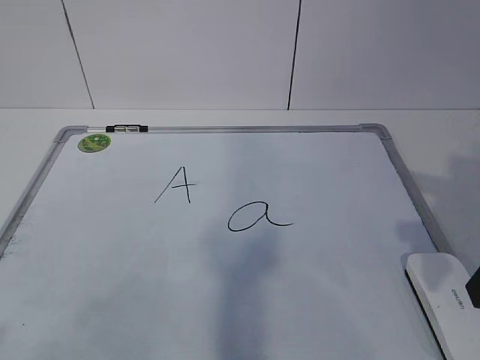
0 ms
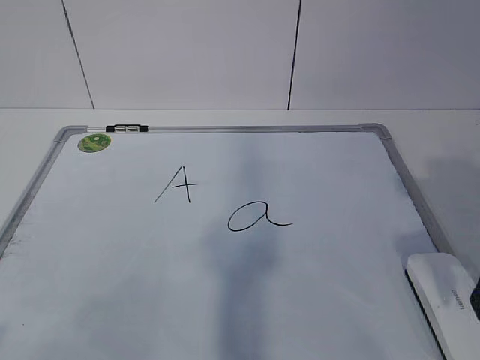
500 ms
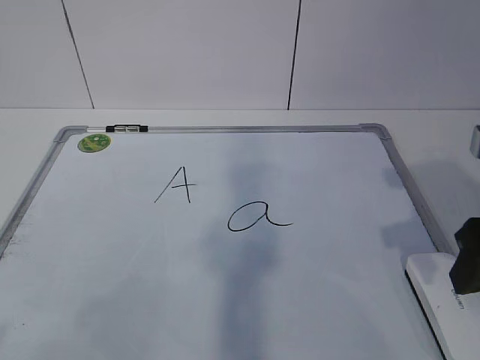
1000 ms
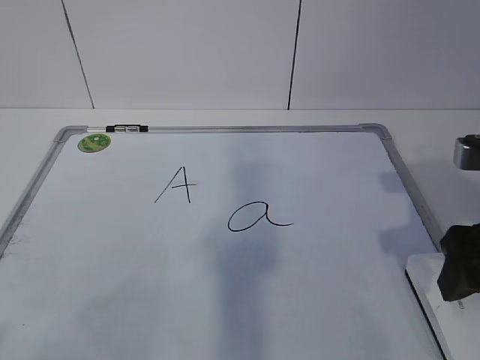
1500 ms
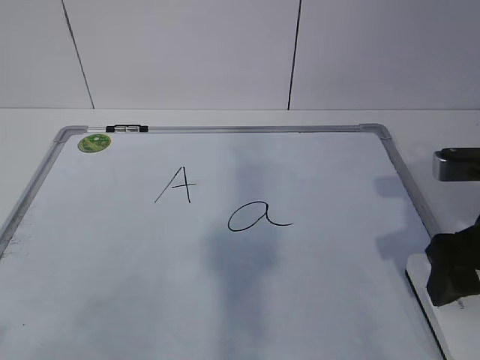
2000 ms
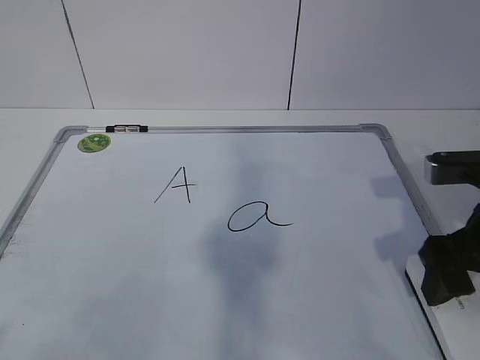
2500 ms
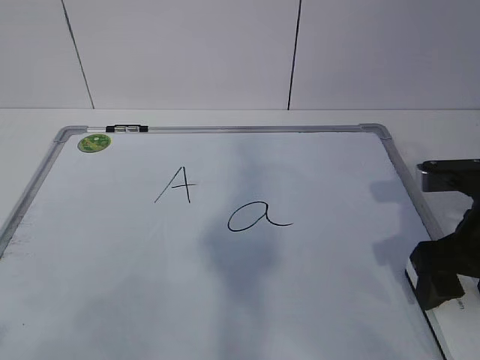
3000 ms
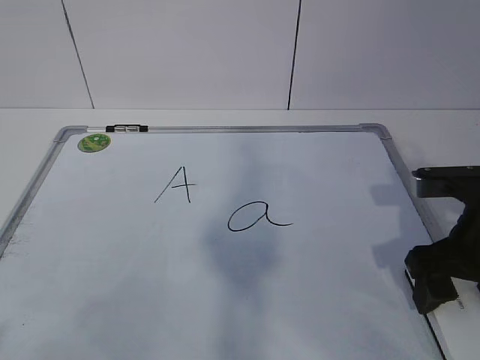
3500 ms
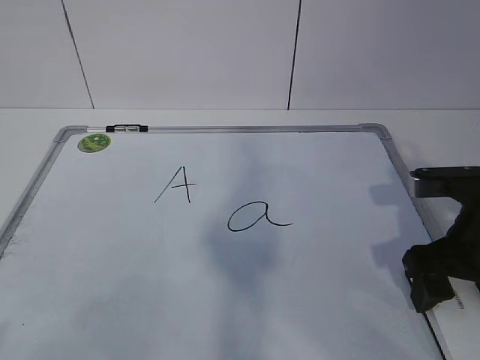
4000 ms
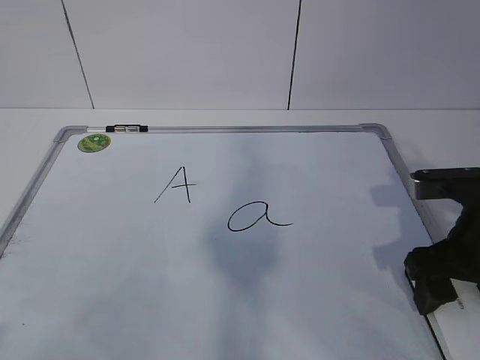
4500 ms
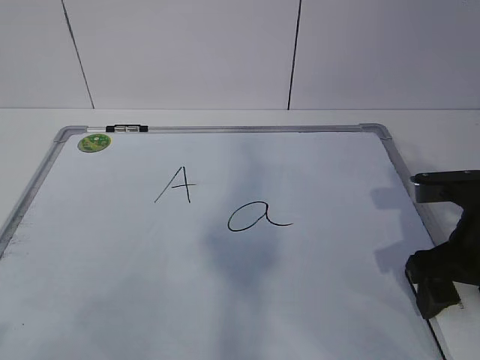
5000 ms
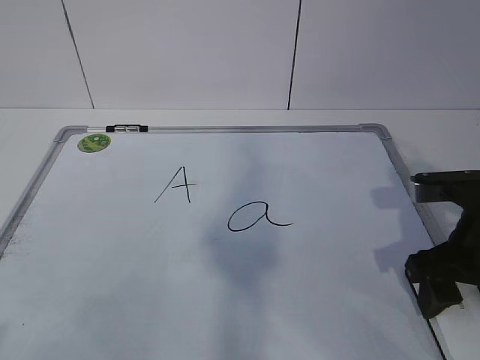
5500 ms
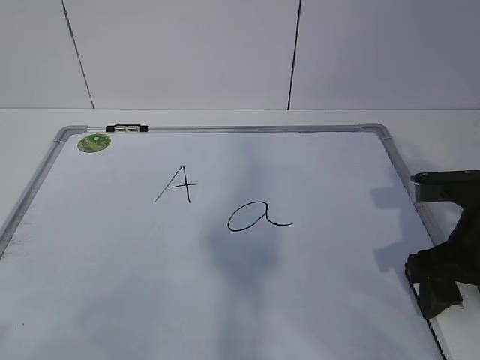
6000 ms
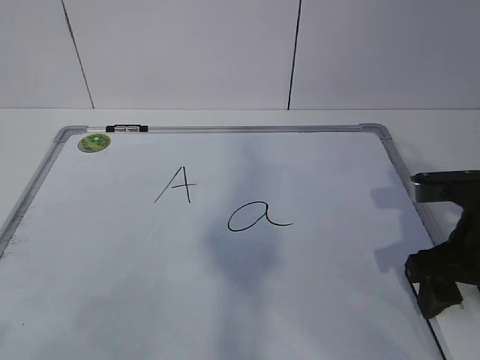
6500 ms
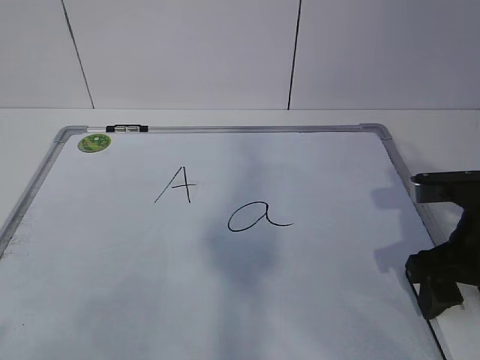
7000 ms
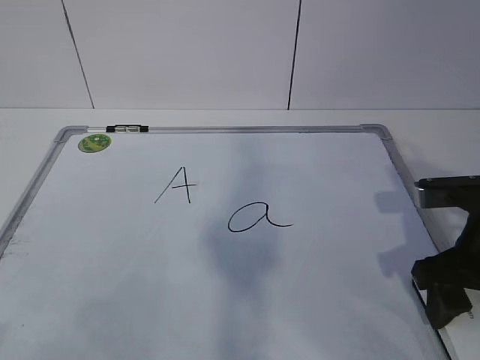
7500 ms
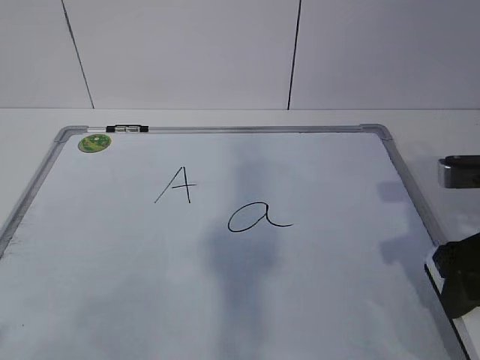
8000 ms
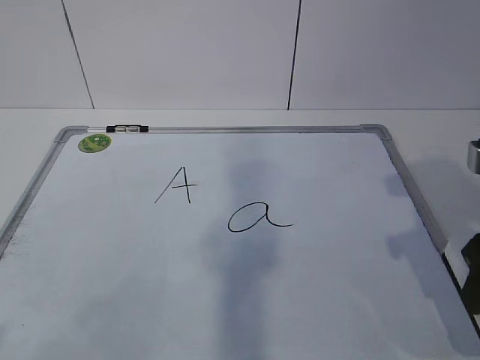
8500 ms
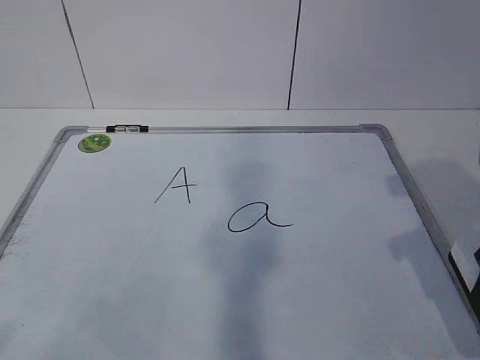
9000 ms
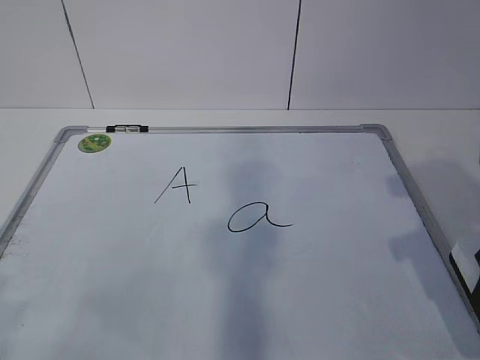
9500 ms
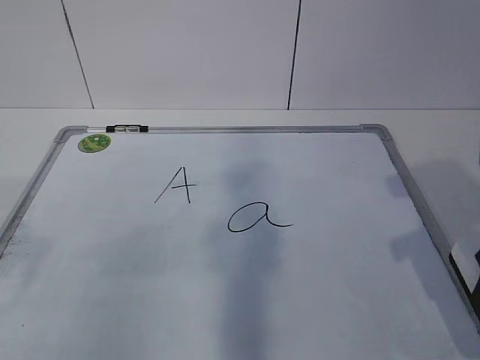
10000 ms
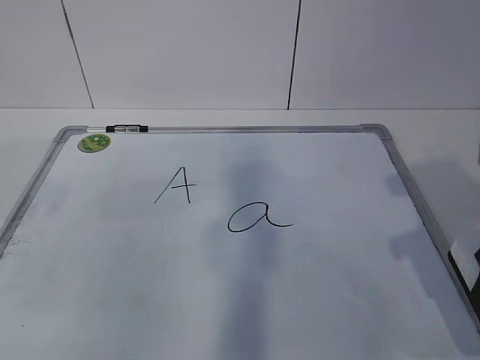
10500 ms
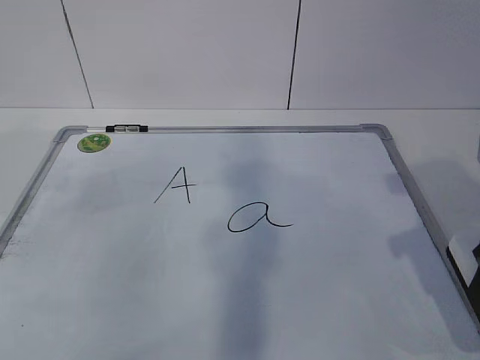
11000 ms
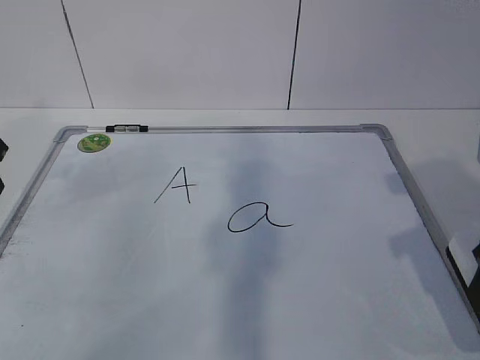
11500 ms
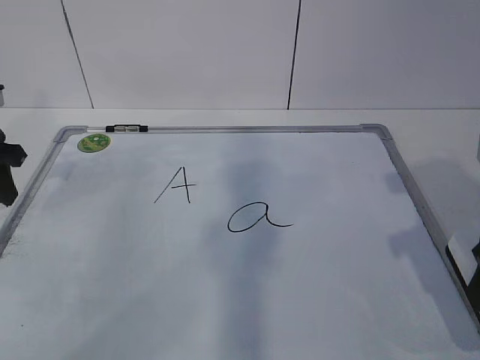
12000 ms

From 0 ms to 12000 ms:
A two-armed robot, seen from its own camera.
Task of the whole recording: pick up the eraser on the blackboard and erase the letter "a".
Step, from 0 ms to 5000 ms: Grab the eraser with your right hand.
Step, from 5500 ms to 10000 ms: Hold the drawing board steady with your left hand.
From 0 ms to 2000 ms: The right gripper ends up approximately 5 cm from where it was.
From 2000 ms to 4000 ms: There are only small adjustments of the grippers.
From 4000 ms to 6000 ms: Both grippers stay put.
From 6000 ms to 8000 ms: The grippers move only a little.
From 8000 ms to 10000 ms: The right gripper changes place by some 5 cm.
From 10000 ms to 12000 ms: The left gripper travels forward by about 25 cm.

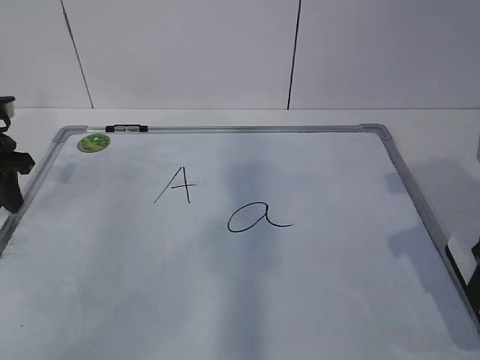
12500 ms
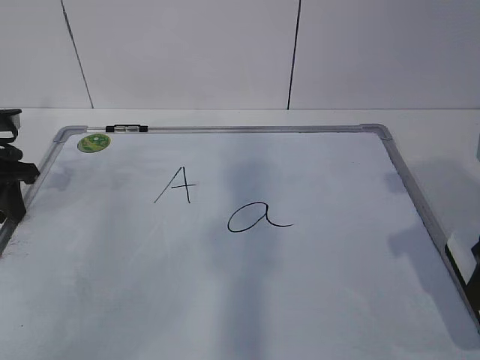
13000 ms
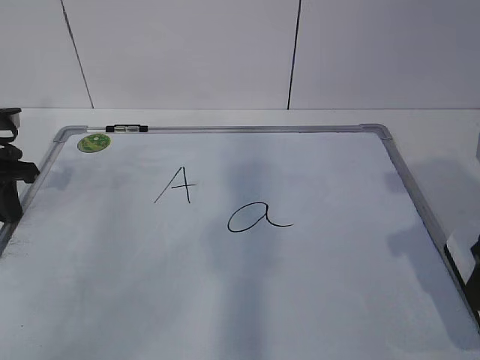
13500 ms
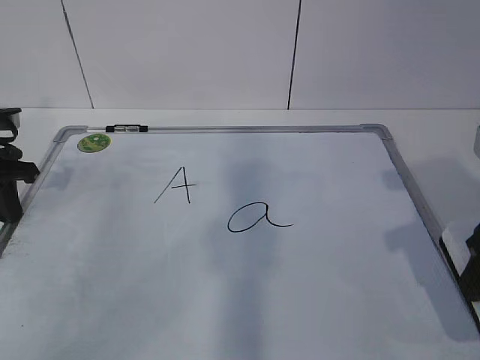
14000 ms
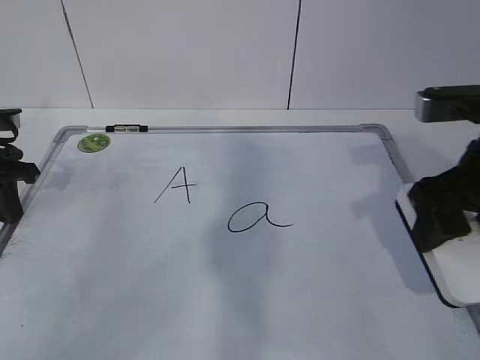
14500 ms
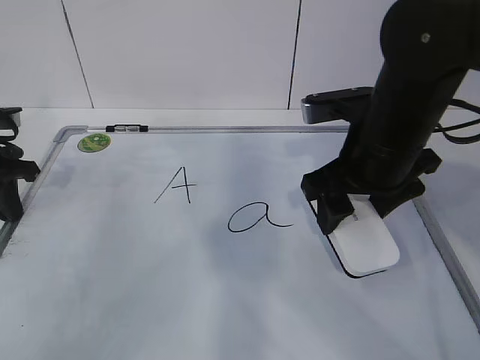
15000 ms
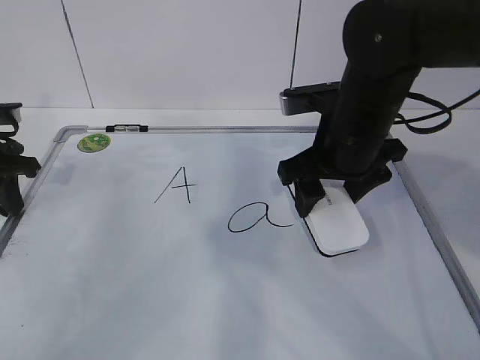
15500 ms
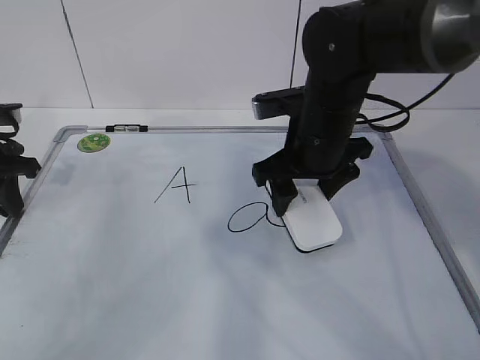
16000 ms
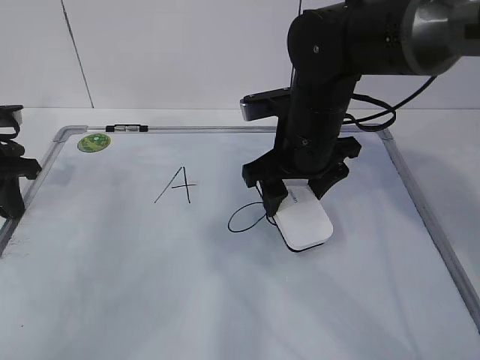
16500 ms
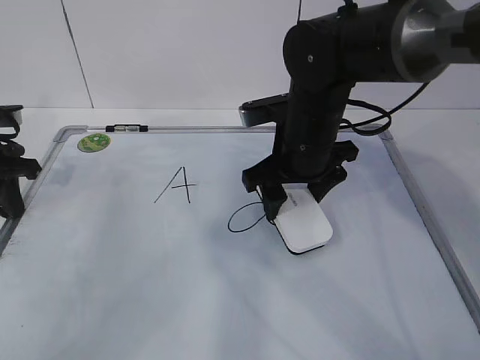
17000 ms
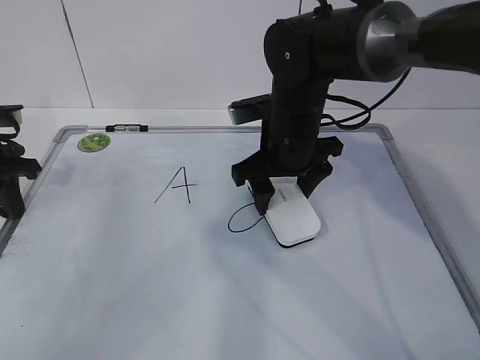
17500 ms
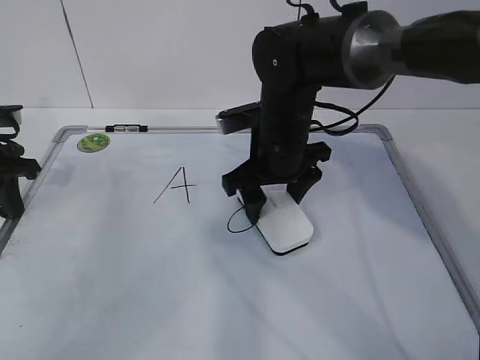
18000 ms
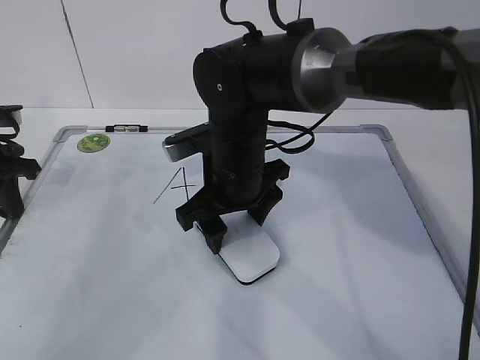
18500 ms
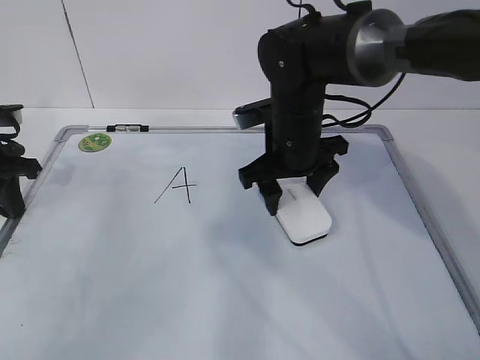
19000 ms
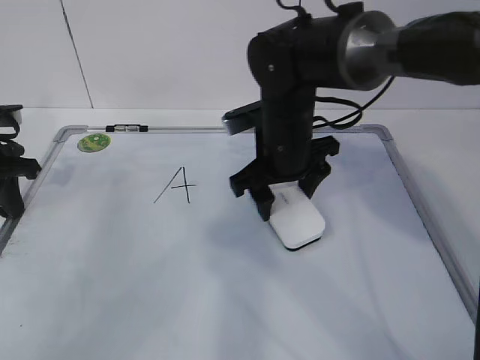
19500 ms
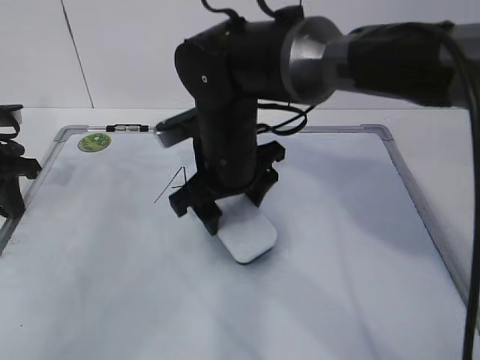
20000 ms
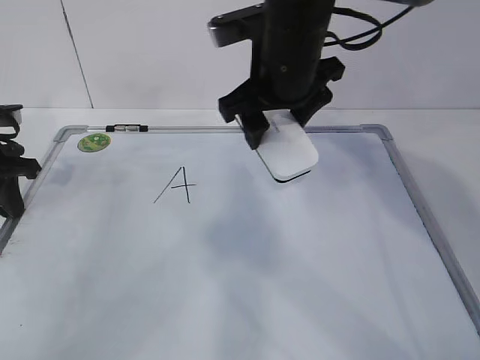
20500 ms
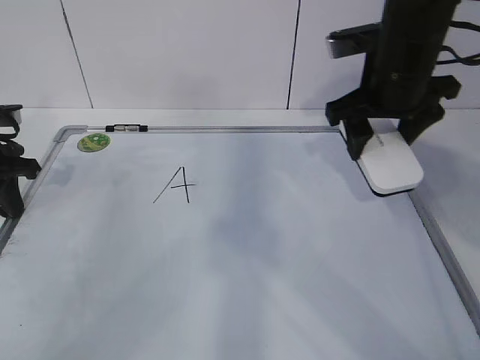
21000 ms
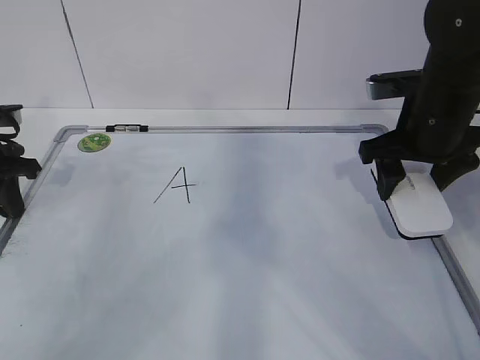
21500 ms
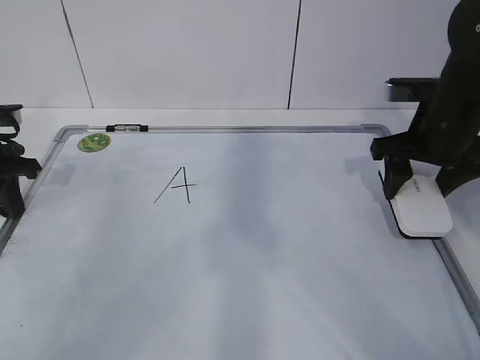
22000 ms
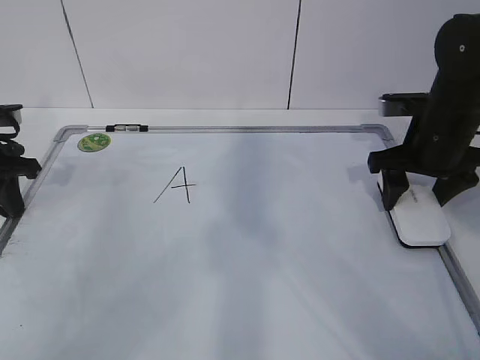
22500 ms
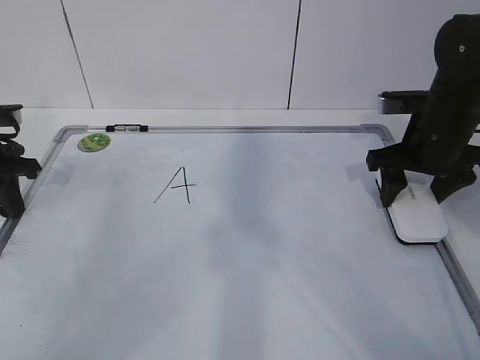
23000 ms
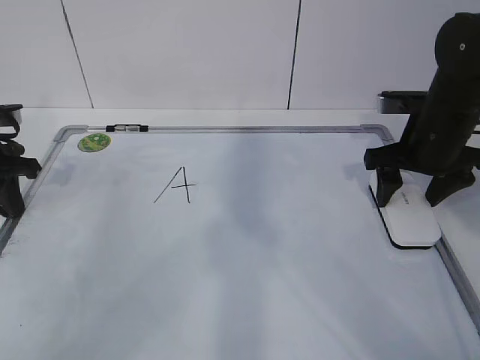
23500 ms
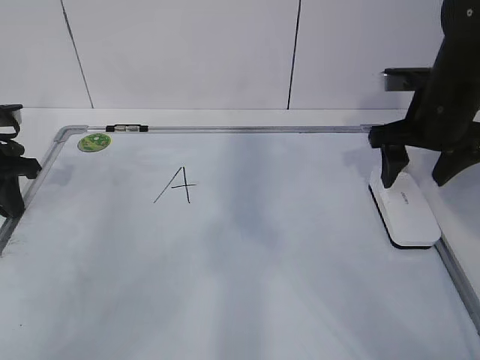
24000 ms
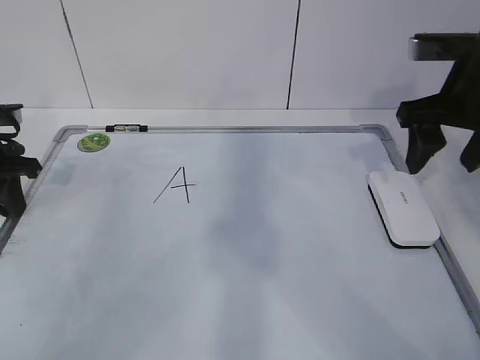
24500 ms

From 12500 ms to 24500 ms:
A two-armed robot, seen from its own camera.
Task of the whole recording: pick up the eraser on the blackboard and erase the letter "a".
Step, from 12500 ms to 15500 ms: Erase the letter a with your right hand.
Step, from 16000 ms to 18500 ms: Put down the eraser with your right hand.
From 12500 ms to 14500 ms: The right gripper heads forward, covering some 5 cm. Meanwhile the left gripper closes up.
From 14500 ms to 16500 ms: The right gripper heads to the left, forward and downward, covering roughly 20 cm.
From 16500 ms to 18500 ms: The right gripper heads to the left, covering about 10 cm.
From 18500 ms to 20500 ms: The right gripper travels upward and to the right by roughly 10 cm.
From 20500 ms to 22500 ms: The right gripper goes about 20 cm to the right and downward.
From 22500 ms to 24500 ms: The right gripper is displaced upward by some 10 cm.

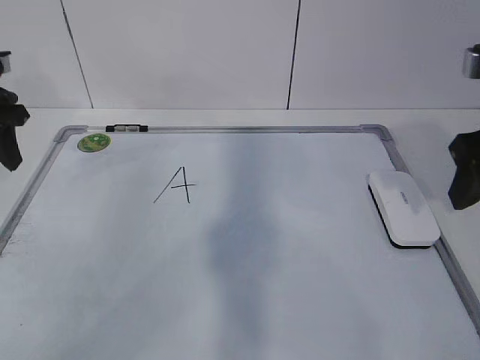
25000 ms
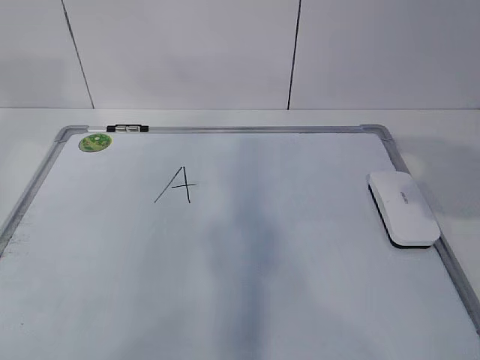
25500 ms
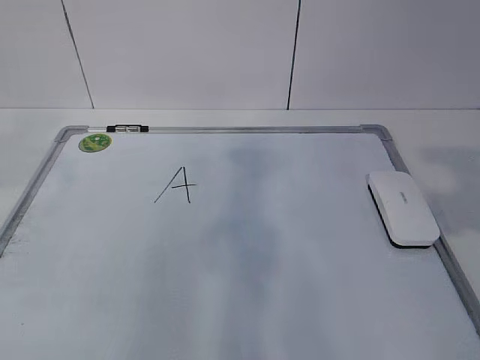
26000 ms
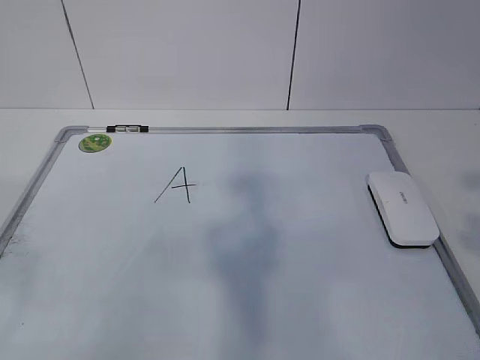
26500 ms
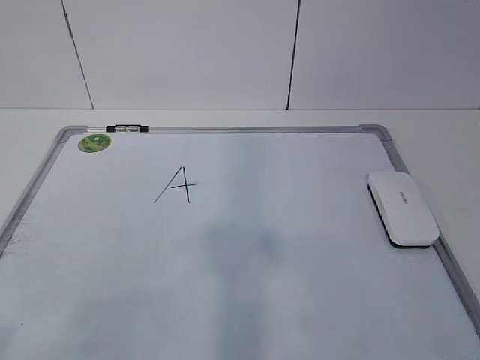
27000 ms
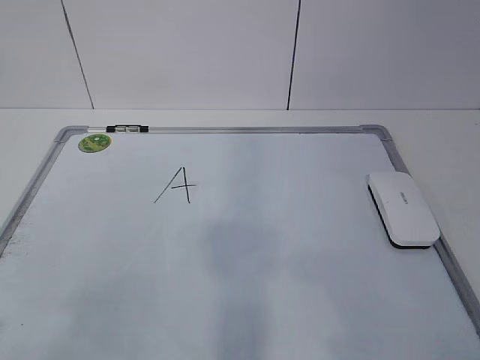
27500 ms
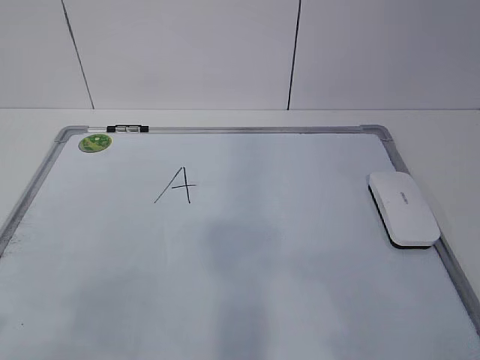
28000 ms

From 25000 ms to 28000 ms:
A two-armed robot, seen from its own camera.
Task of the whole recording: pick up the eraser on the blackboard and erase the letter "a".
From 25000 ms to 26500 ms: The right gripper moves backward, approximately 20 cm. Meanwhile the left gripper is displaced backward by about 35 cm.
From 26500 ms to 28000 ms: The grippers both shift downward by approximately 10 cm.
